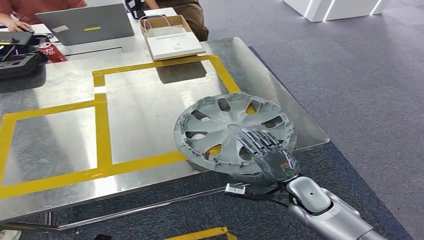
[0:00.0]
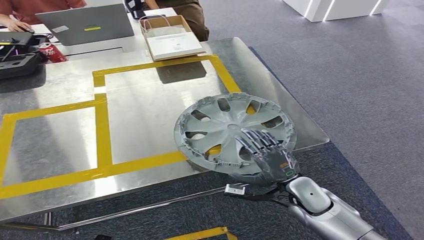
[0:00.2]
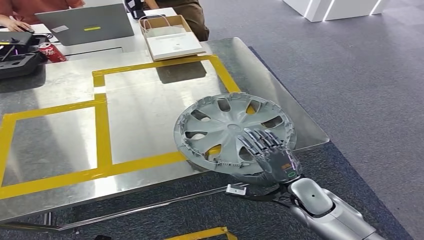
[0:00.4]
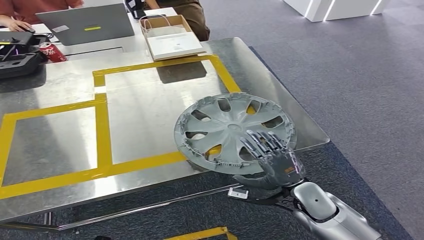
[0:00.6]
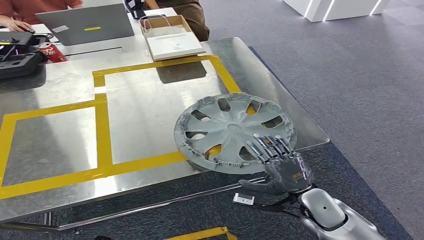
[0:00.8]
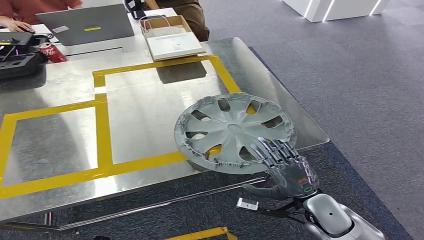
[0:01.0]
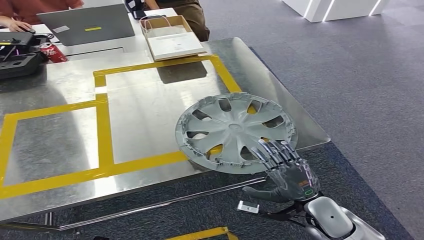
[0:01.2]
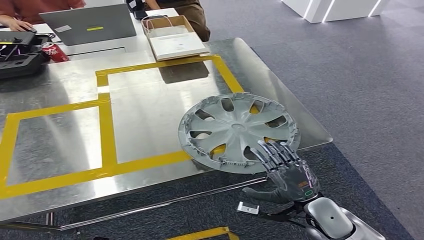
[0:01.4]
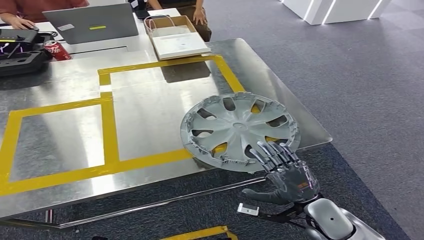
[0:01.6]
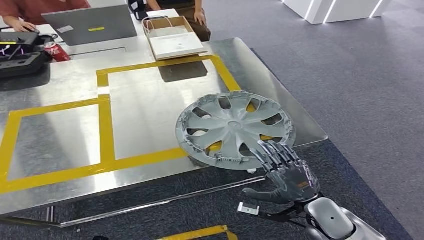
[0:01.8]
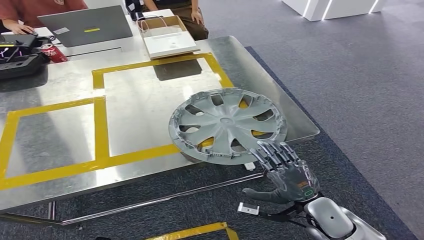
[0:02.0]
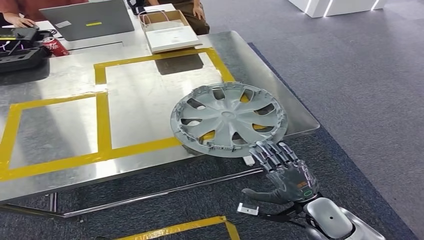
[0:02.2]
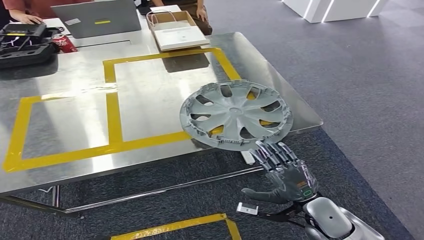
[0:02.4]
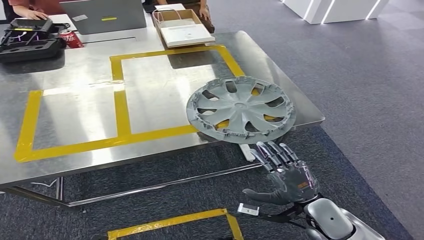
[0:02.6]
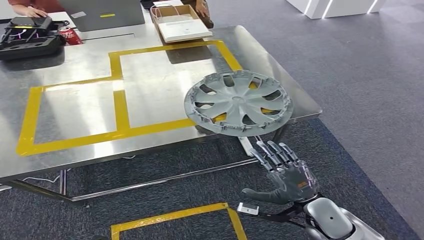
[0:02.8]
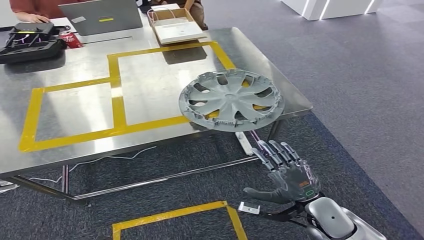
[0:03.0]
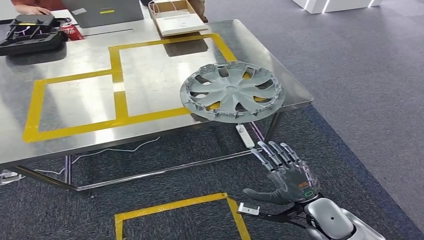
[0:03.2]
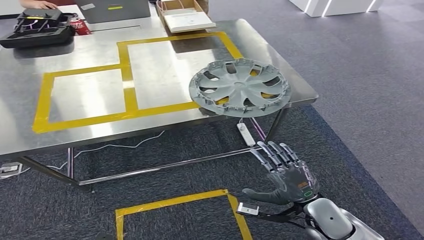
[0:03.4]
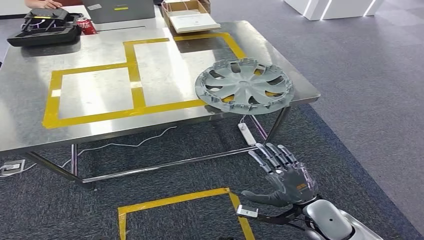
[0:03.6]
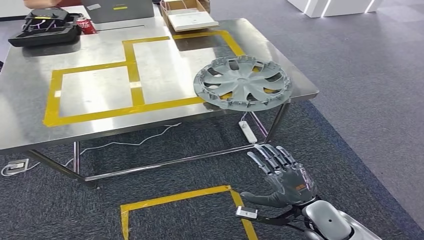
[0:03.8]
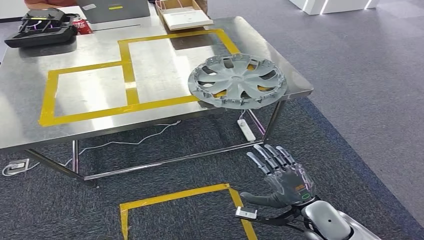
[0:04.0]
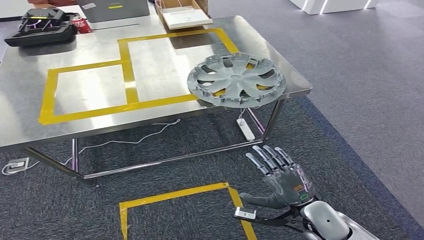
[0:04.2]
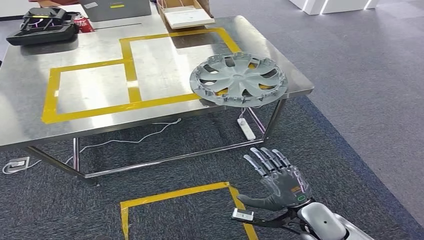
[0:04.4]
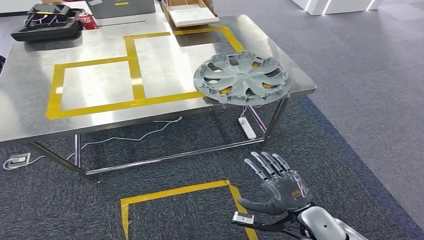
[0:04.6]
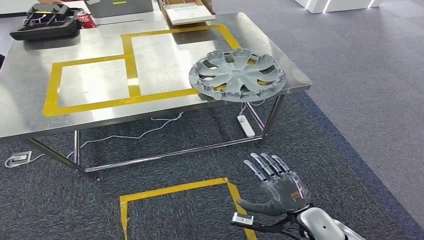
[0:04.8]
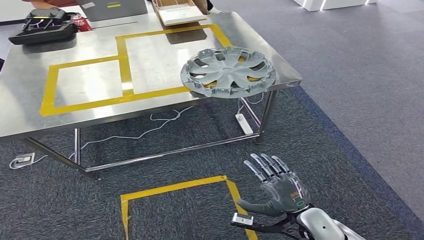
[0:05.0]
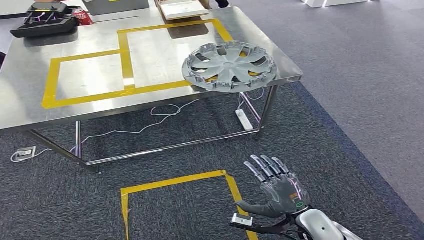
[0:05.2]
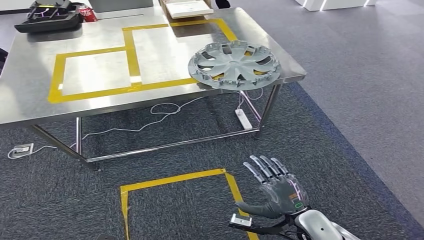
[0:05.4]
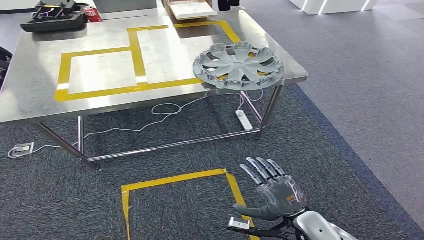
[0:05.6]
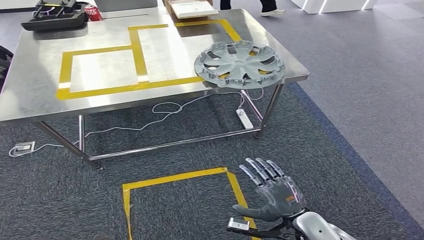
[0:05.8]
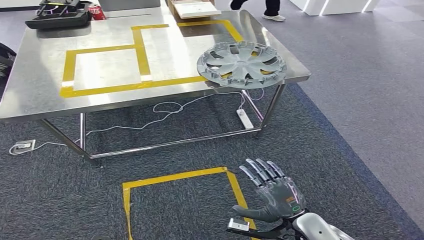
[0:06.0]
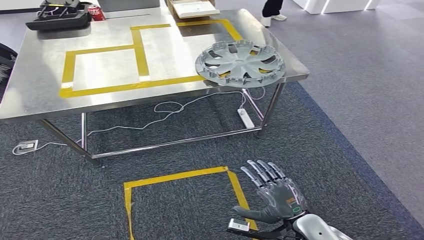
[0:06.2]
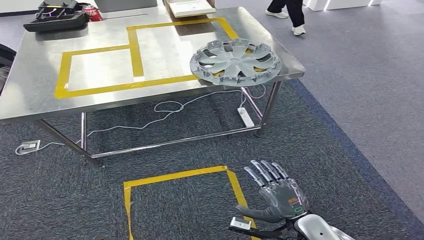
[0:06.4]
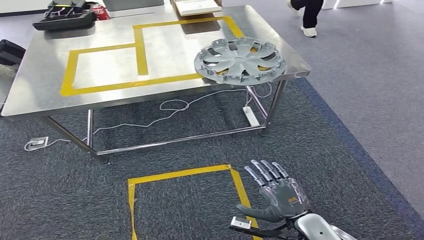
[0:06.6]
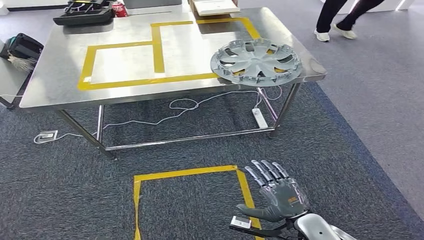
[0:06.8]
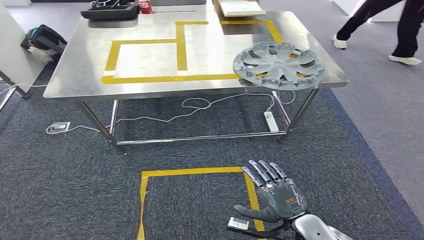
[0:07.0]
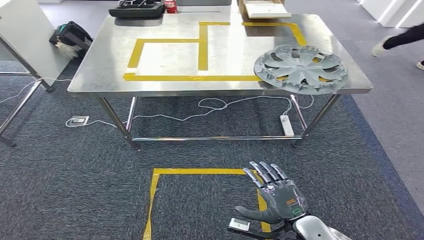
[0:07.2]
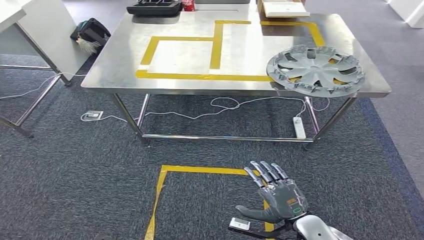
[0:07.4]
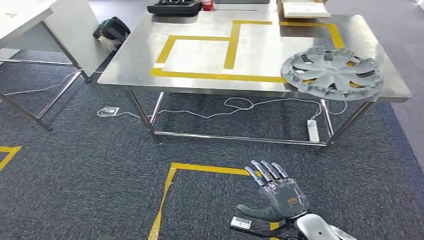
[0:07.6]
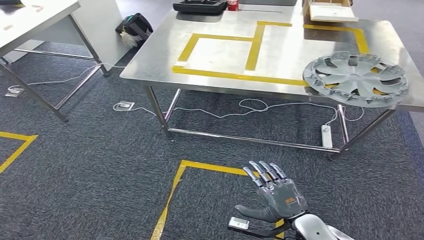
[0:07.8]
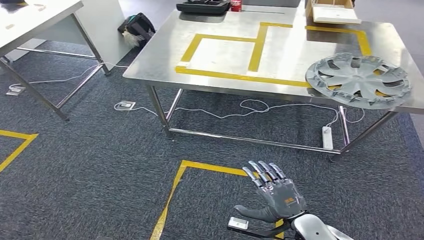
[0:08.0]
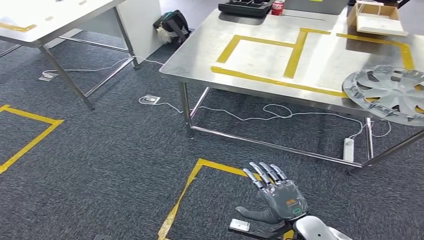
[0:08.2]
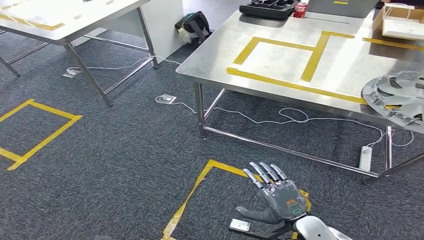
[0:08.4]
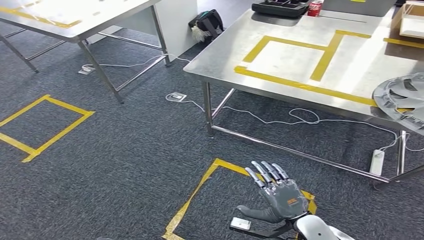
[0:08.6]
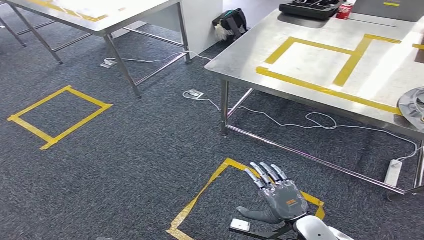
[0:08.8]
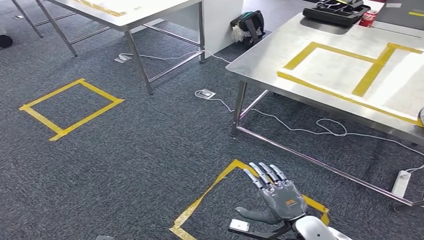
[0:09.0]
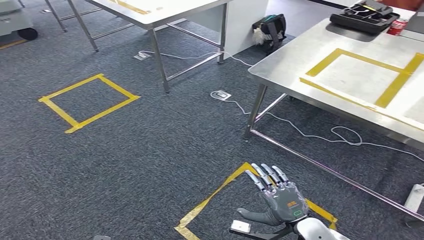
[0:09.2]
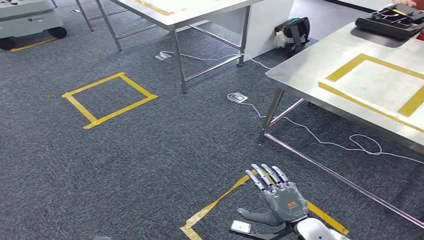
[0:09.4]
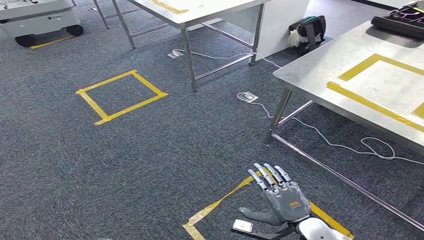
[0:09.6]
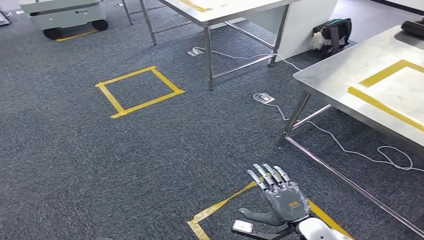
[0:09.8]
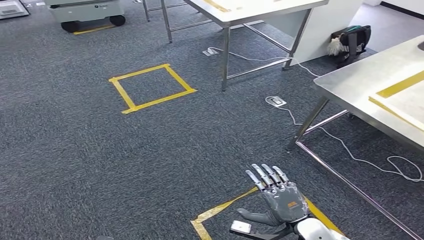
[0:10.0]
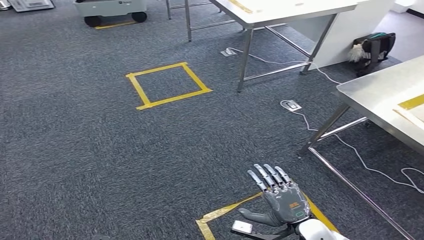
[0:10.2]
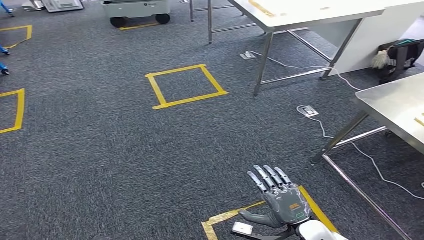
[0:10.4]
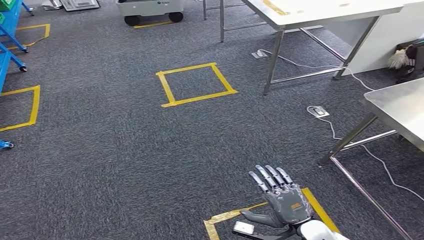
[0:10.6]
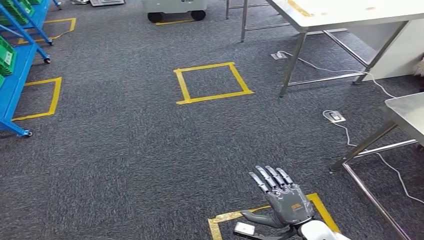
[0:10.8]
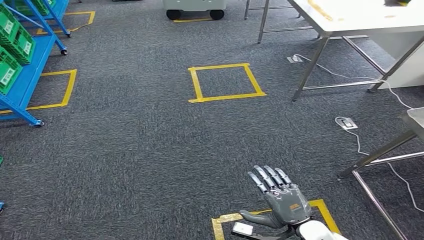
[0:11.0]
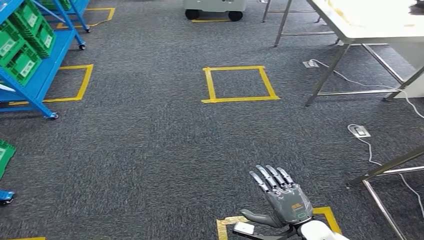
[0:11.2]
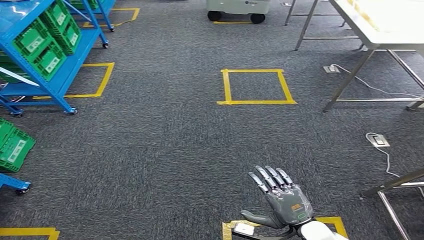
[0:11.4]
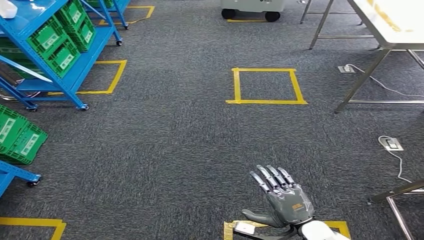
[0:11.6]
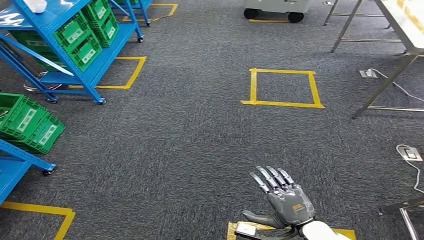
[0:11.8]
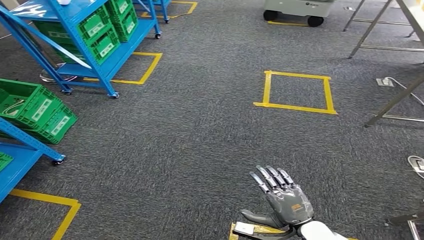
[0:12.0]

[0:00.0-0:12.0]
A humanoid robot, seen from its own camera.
Step, 0:00.0 to 0:03.4: Insert the small parts into the corresponding holes on the workbench.
0:00.0 to 0:01.6: The right hand moves backward, some 5 cm.

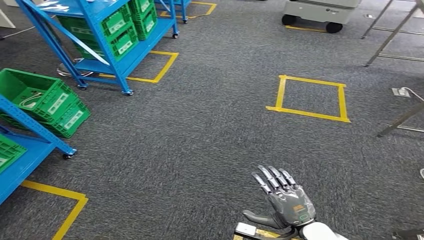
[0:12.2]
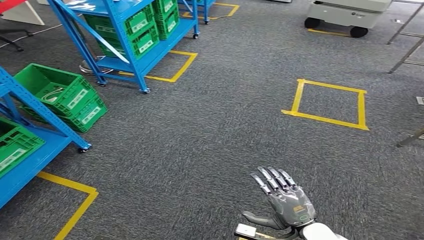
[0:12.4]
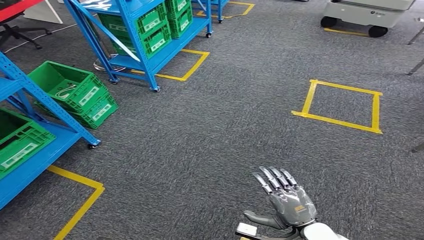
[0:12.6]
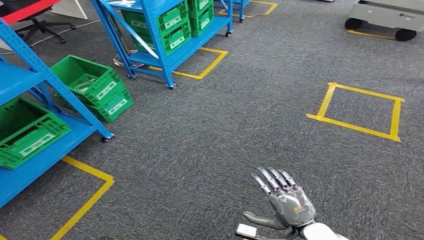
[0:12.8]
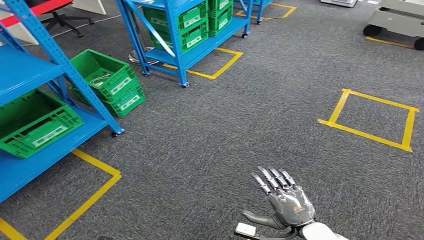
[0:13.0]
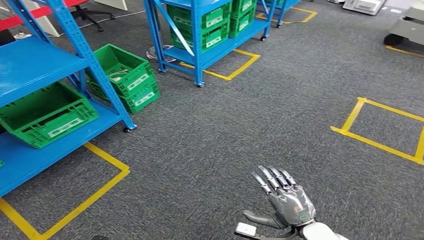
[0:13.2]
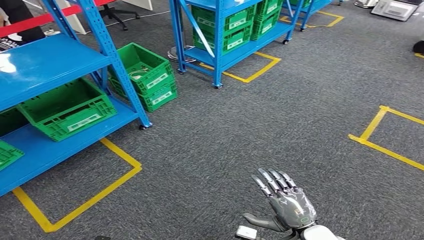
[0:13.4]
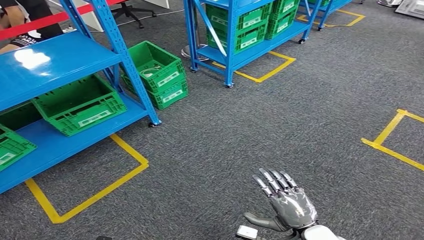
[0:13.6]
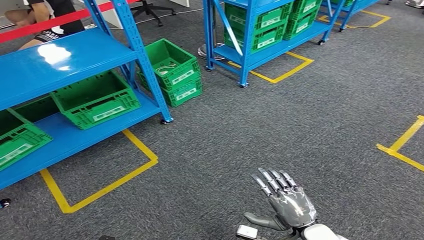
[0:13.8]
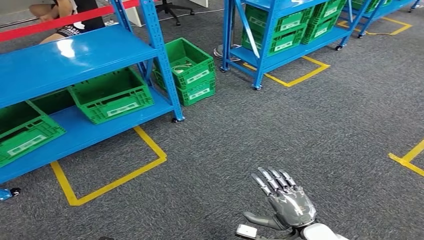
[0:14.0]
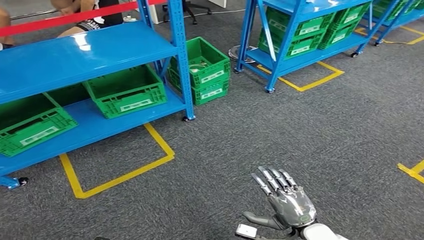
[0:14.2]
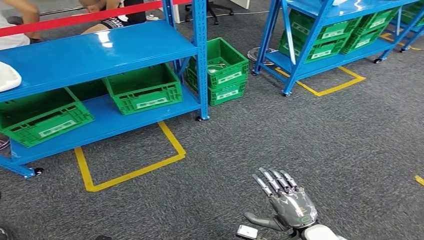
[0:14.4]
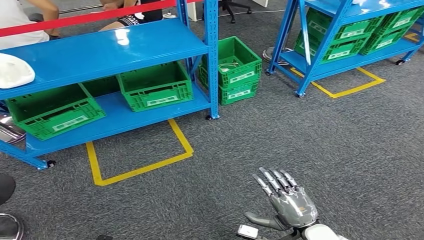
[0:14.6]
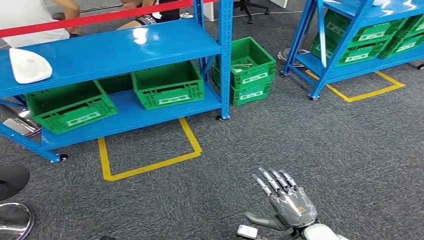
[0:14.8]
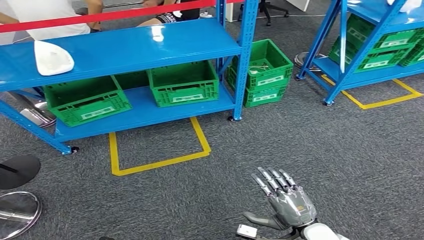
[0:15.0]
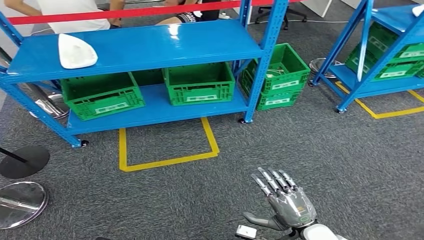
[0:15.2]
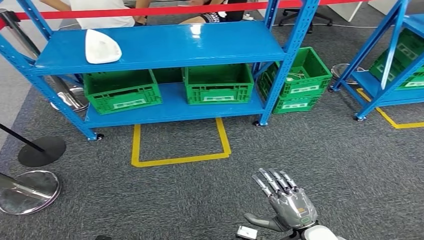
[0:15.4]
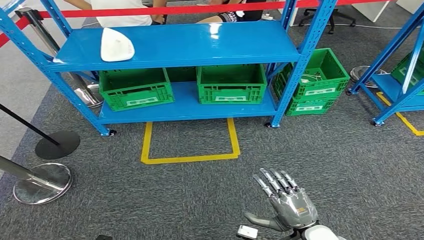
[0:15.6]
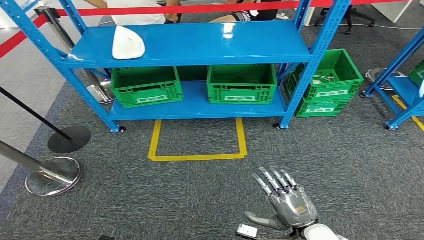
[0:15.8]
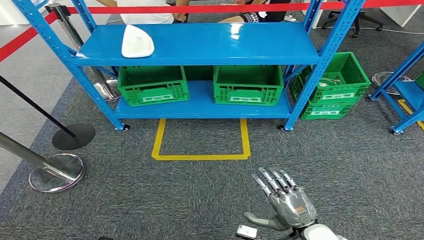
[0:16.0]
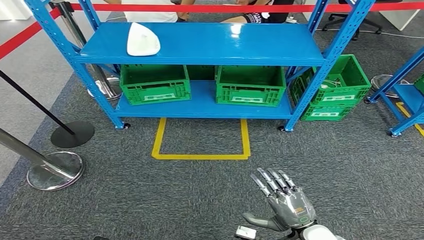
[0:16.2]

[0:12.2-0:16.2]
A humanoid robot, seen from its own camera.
Step, 0:12.2 to 0:16.2: Move to the initial position at the workbench.
